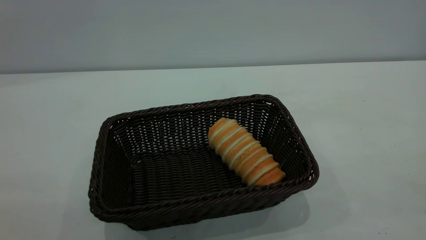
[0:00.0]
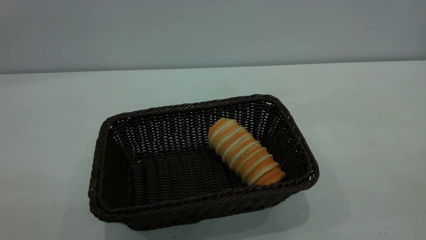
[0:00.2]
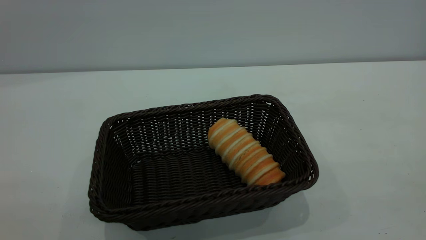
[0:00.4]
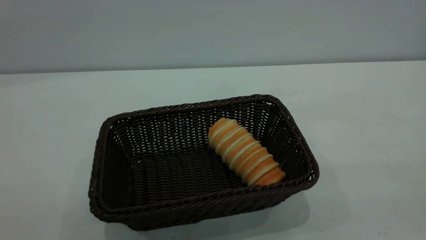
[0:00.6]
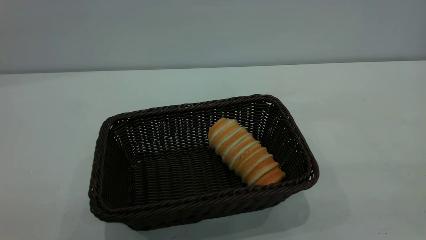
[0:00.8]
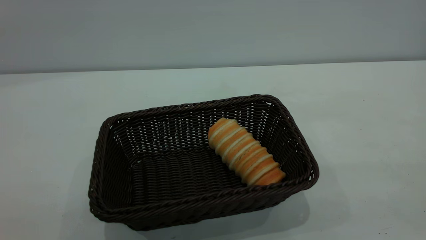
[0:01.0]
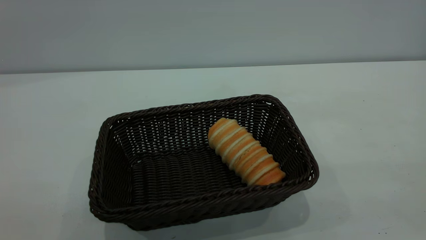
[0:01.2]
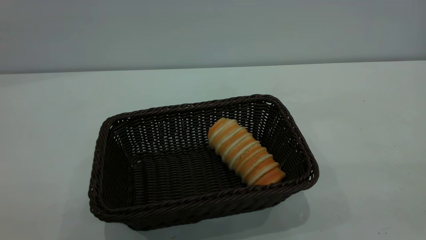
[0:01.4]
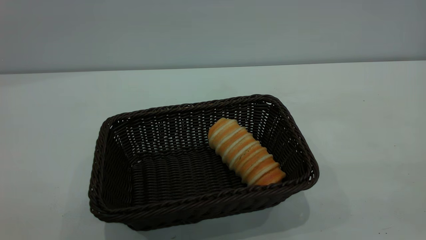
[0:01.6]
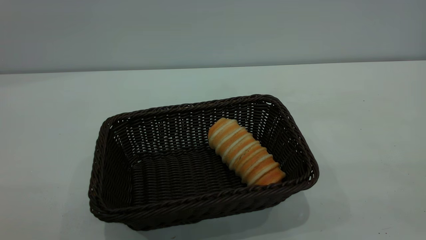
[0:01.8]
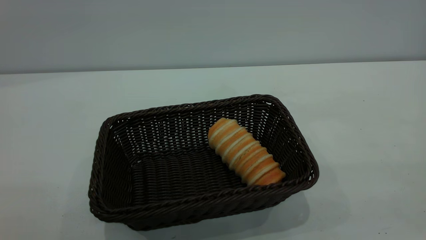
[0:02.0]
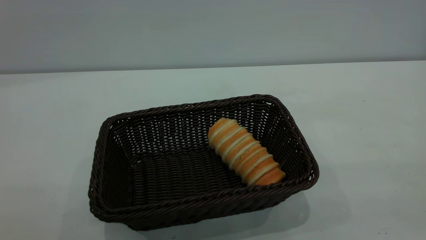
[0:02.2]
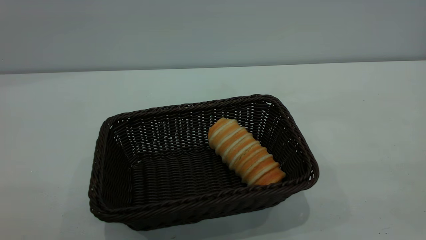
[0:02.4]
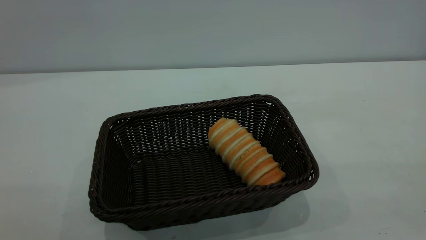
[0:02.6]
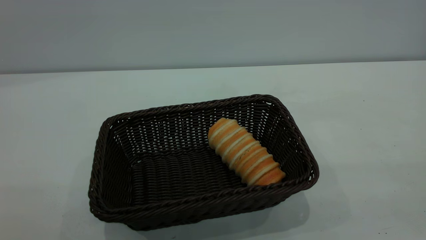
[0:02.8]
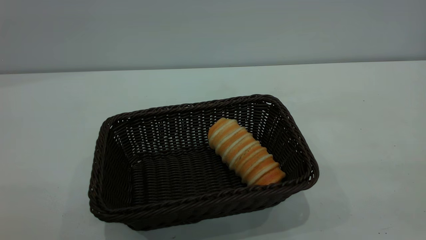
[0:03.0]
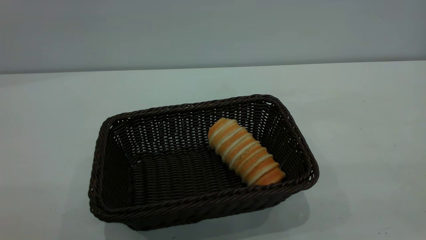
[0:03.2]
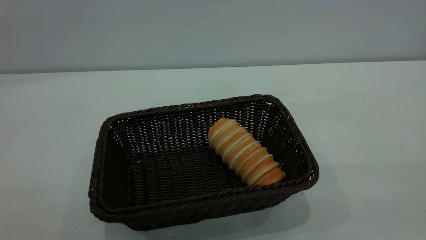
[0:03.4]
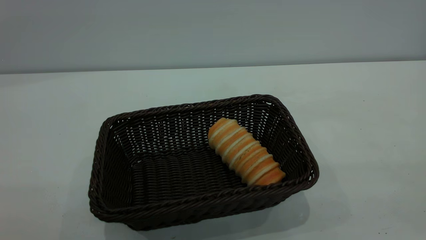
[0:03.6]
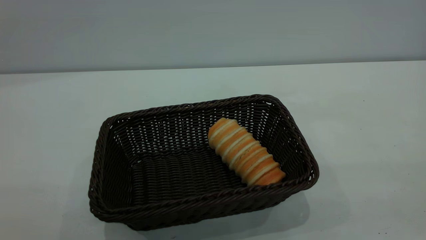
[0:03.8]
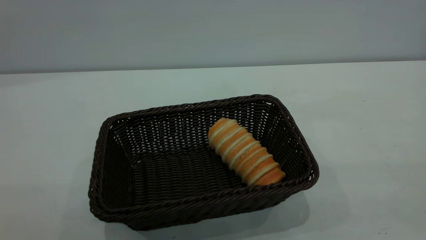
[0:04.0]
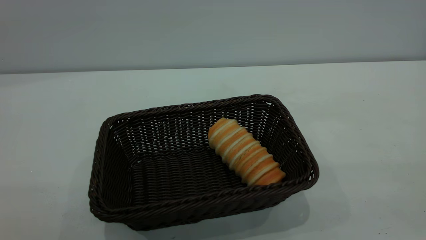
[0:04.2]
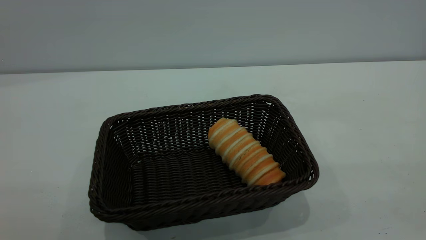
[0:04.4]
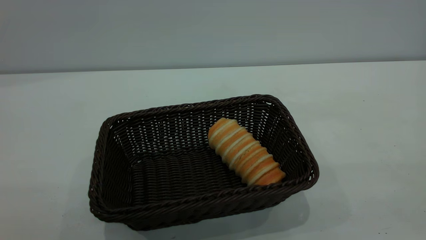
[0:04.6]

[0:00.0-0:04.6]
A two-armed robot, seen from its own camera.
Task of the whole recording: One hand grasps the black basket and places it in the middle of the table, while the other hand picks up the long bread and puts it into the black basket.
0:03.0 to 0:04.6: Both grippers stay put.

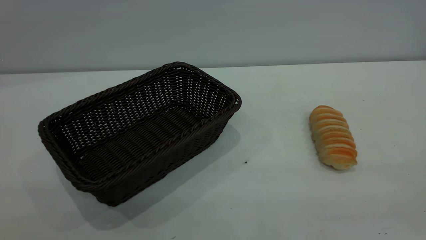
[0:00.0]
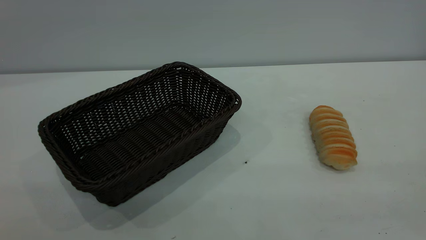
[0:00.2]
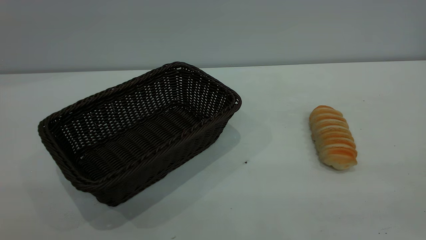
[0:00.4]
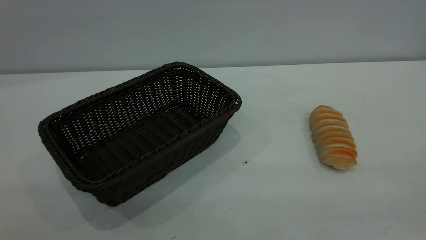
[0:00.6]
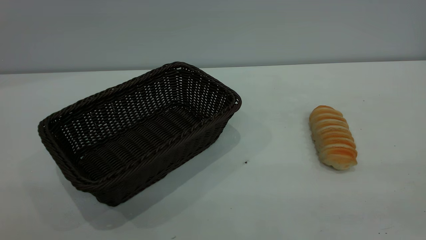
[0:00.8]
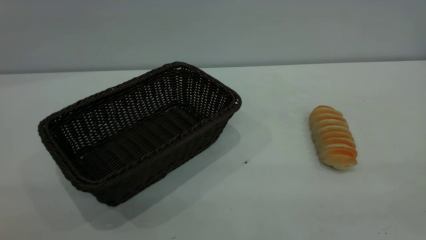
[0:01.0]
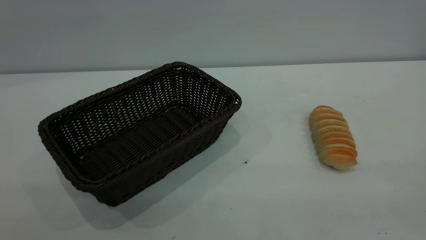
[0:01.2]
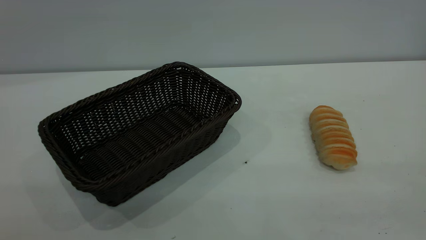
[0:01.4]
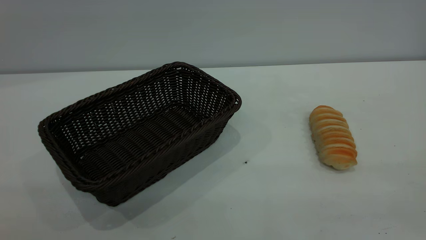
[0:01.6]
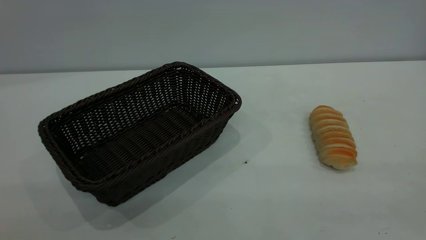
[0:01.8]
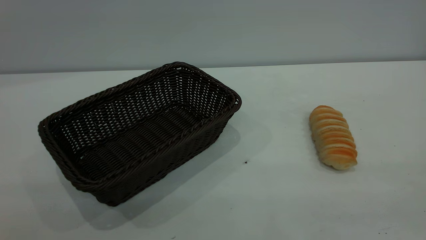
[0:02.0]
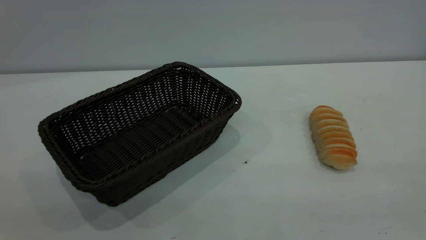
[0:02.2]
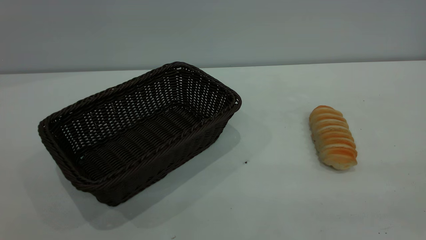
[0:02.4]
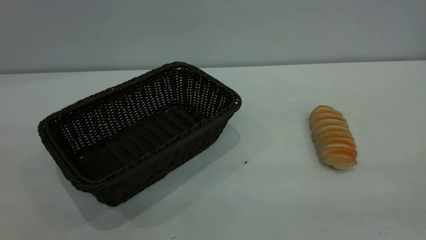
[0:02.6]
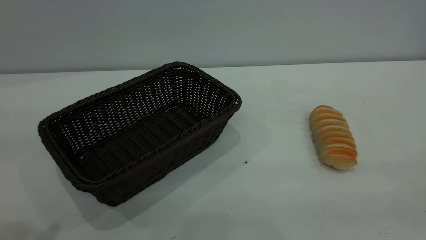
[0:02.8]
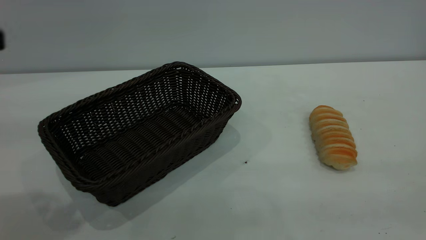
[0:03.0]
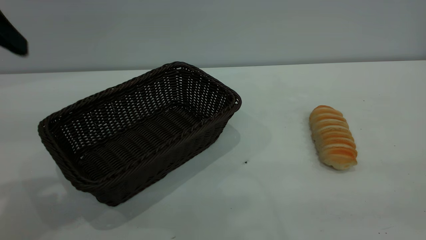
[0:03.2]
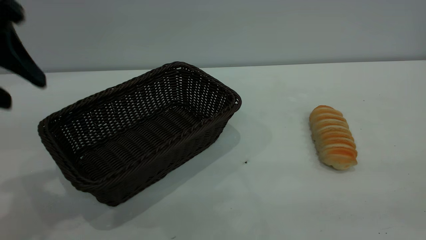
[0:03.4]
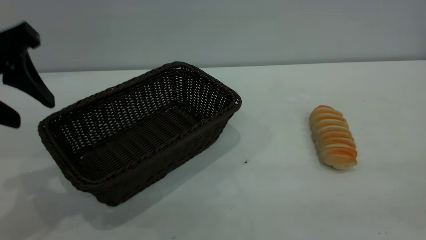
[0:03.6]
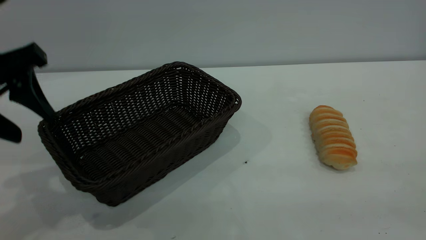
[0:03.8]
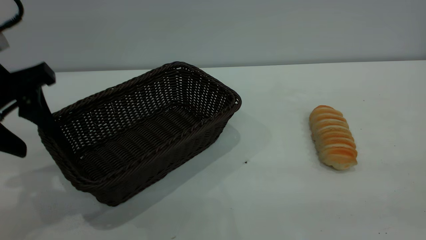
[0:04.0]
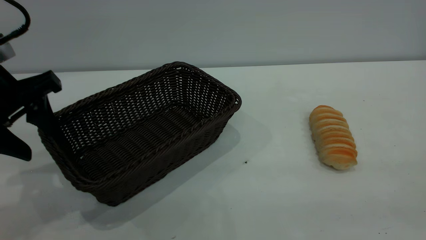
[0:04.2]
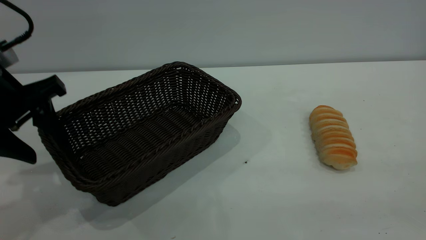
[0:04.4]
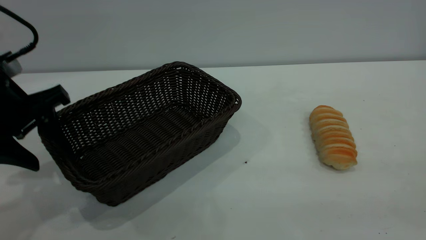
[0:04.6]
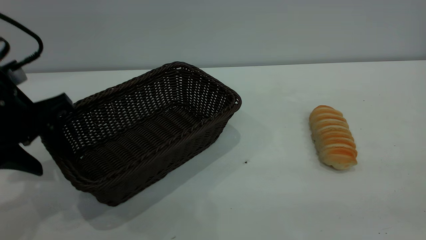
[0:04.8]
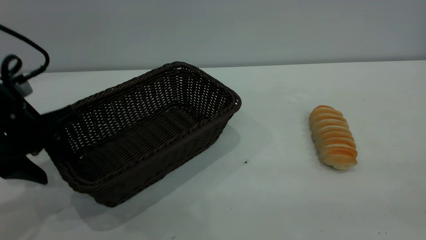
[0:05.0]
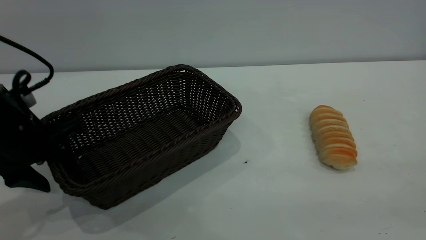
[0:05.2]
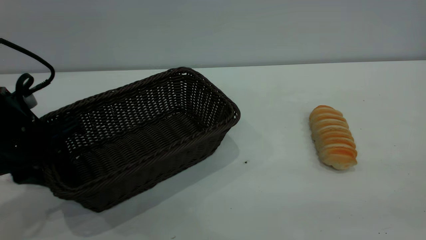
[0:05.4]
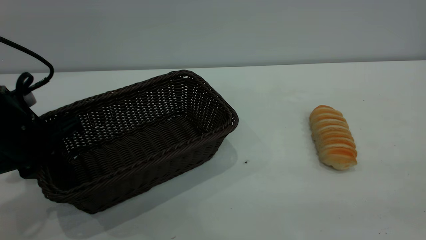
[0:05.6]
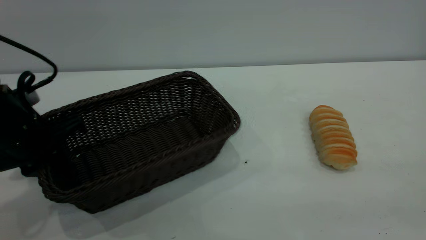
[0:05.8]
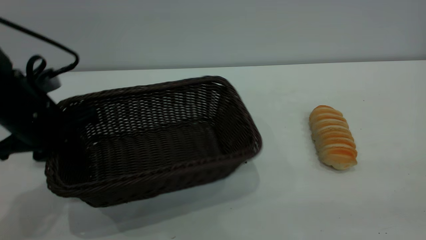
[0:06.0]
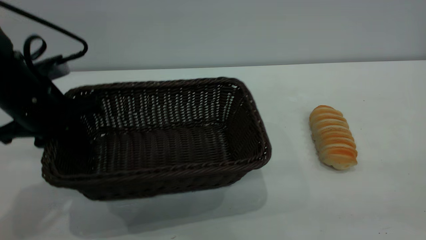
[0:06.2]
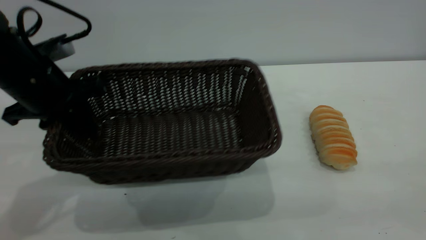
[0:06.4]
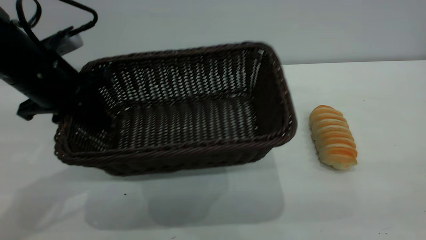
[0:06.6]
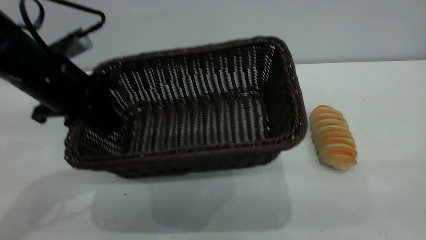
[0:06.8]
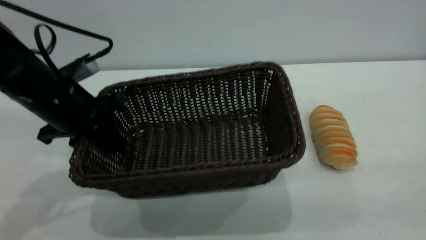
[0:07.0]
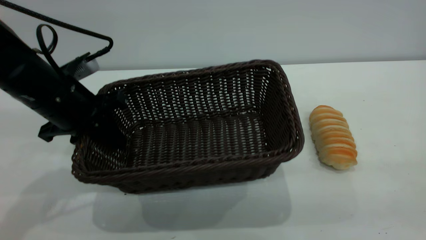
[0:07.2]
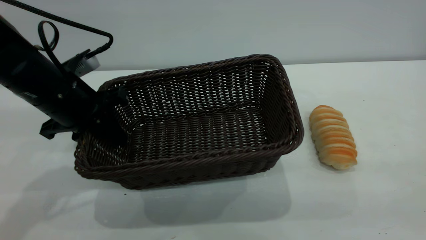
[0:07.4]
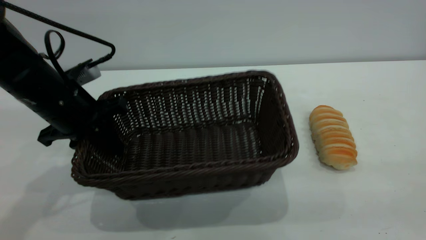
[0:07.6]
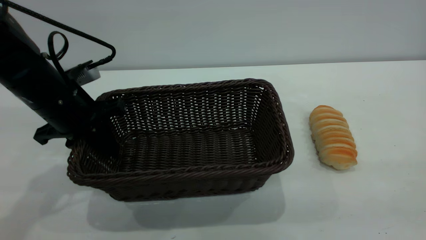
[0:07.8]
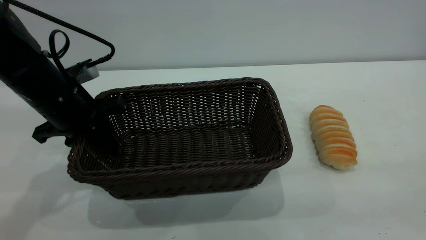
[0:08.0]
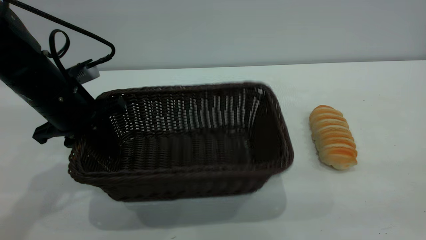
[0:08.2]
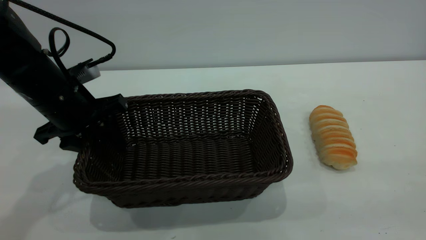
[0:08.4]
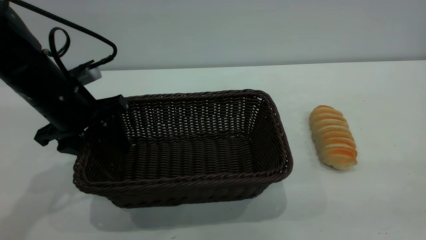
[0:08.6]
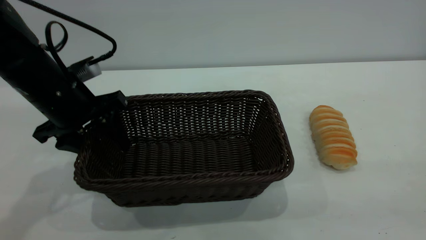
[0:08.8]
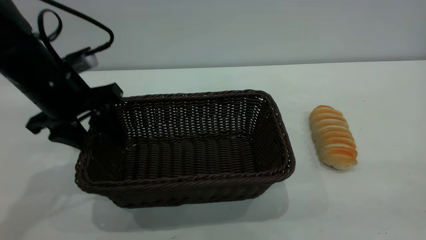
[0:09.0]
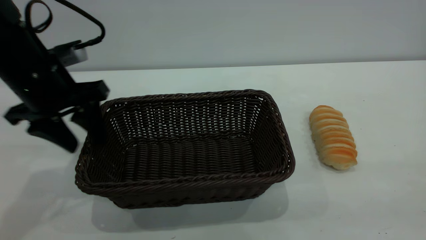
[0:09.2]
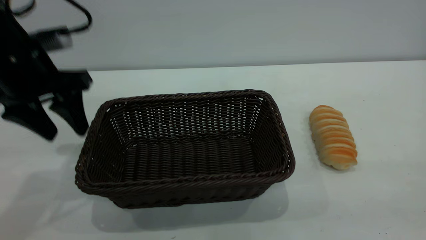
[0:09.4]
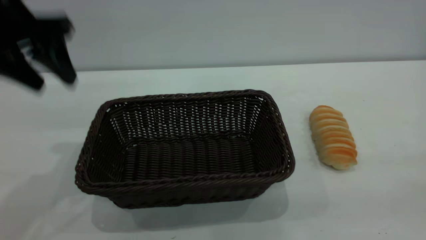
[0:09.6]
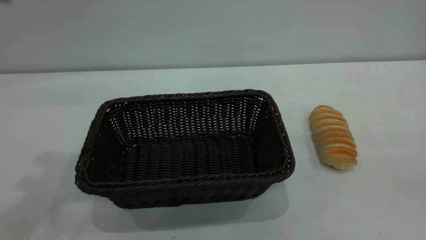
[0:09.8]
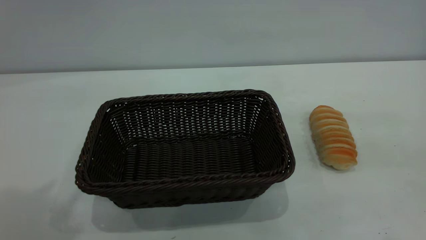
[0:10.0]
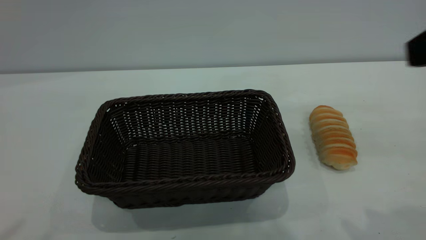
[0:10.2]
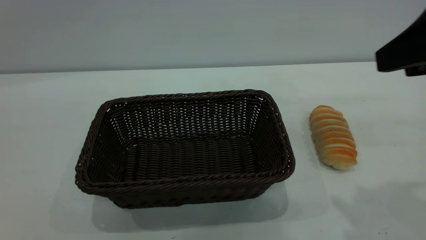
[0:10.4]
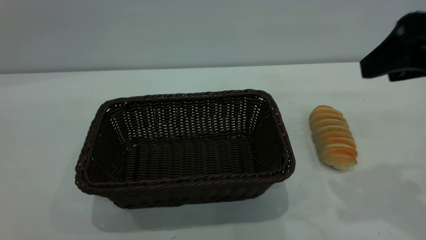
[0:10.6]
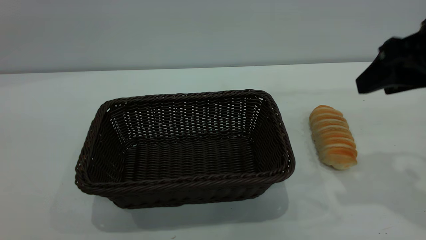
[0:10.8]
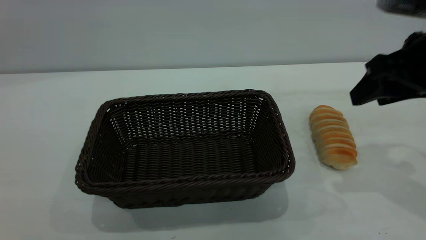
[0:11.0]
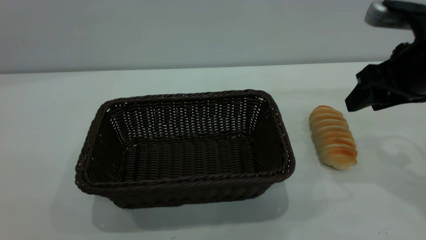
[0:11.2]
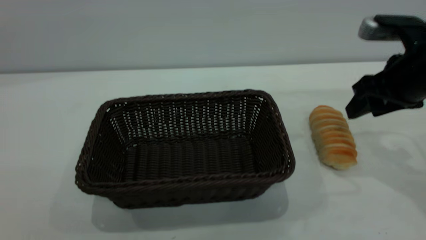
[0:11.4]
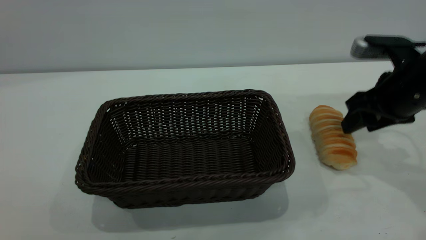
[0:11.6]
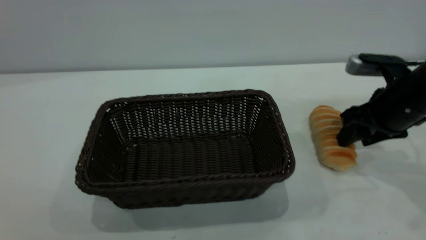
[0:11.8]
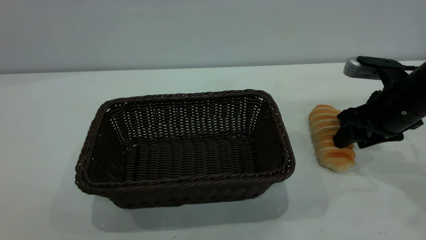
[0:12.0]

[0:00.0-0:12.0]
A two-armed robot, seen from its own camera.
Task of the whole recording: One hand grasps the black basket and places it in the middle of the table, while the other hand picks up the long bread and puts it into the black basket.
Step, 0:00.0 to 0:09.4: Move the basket to the center of view.
0:03.0 to 0:04.4: The left gripper heads downward and forward, covering some 15 cm.
0:04.4 to 0:06.0: The left gripper heads downward, covering about 5 cm, and closes up.
0:07.6 to 0:09.0: The left gripper opens up.
0:09.0 to 0:10.4: The right gripper shifts some 20 cm forward, and opens. The left gripper moves upward and backward, some 40 cm.
0:10.4 to 0:12.0: The right gripper goes about 20 cm downward and forward.
